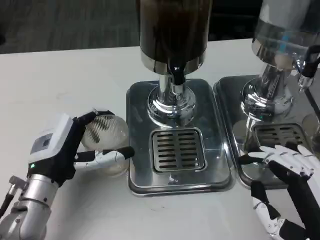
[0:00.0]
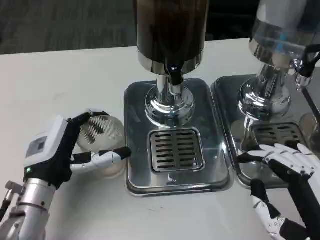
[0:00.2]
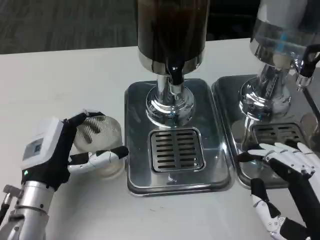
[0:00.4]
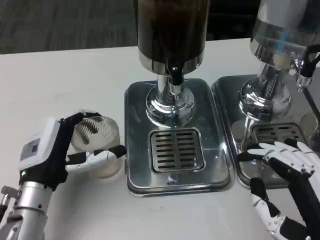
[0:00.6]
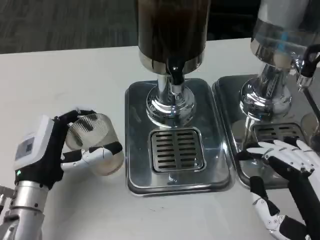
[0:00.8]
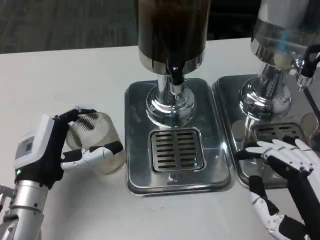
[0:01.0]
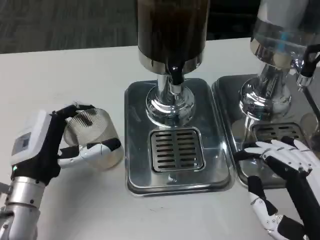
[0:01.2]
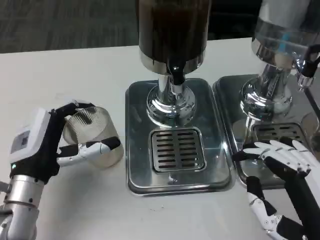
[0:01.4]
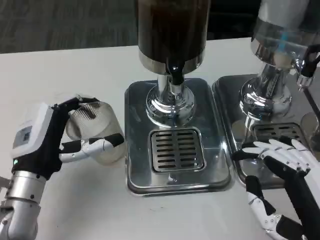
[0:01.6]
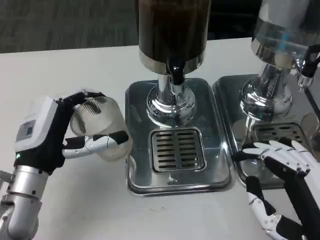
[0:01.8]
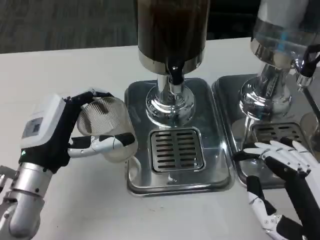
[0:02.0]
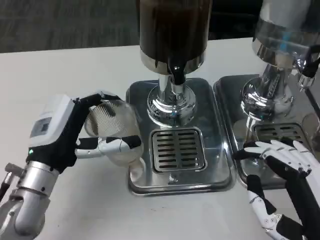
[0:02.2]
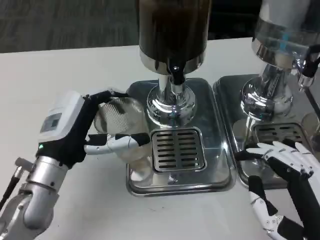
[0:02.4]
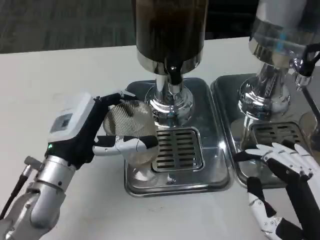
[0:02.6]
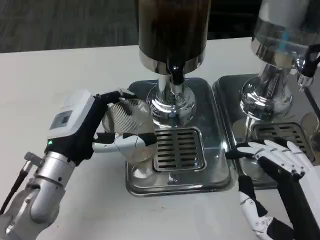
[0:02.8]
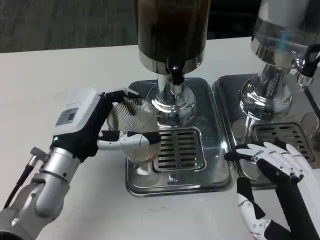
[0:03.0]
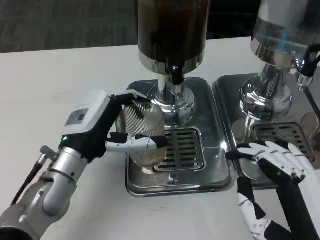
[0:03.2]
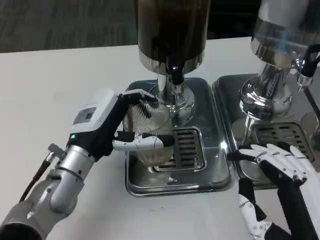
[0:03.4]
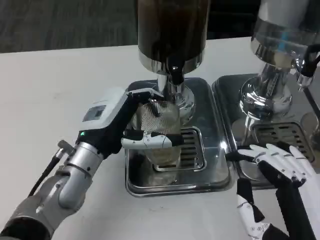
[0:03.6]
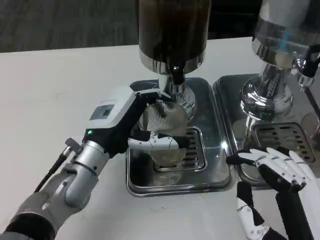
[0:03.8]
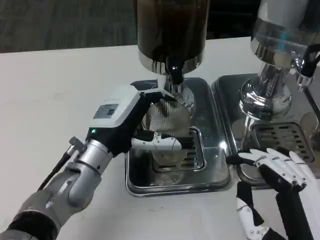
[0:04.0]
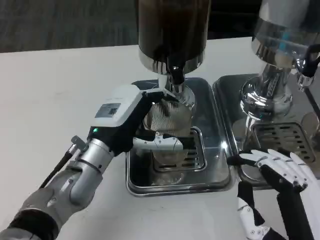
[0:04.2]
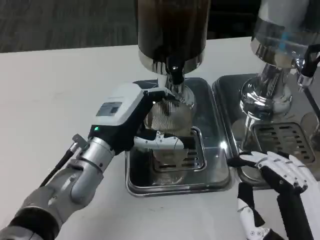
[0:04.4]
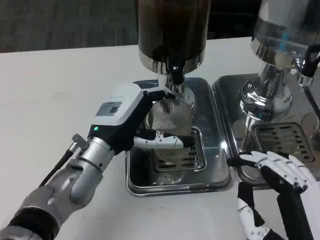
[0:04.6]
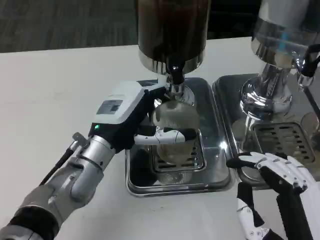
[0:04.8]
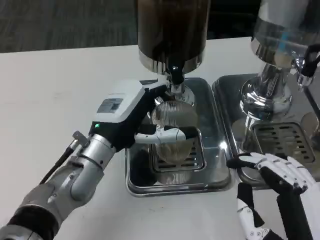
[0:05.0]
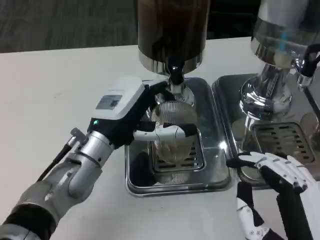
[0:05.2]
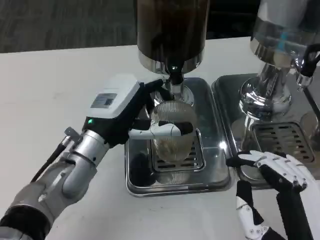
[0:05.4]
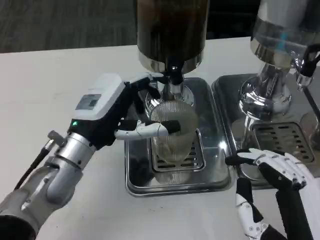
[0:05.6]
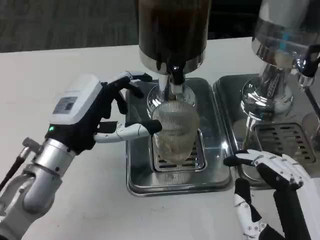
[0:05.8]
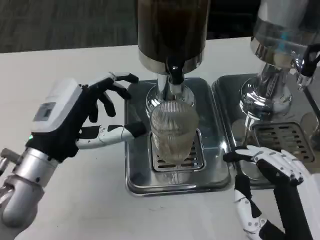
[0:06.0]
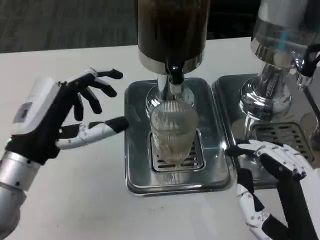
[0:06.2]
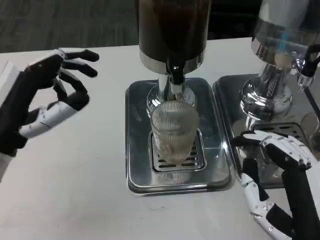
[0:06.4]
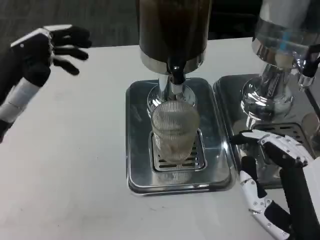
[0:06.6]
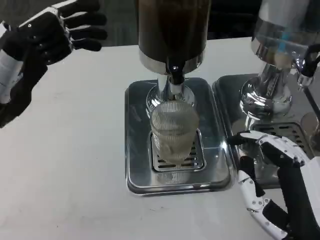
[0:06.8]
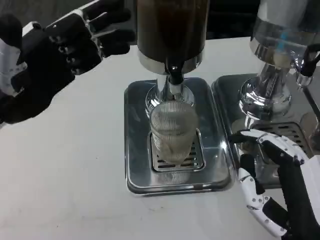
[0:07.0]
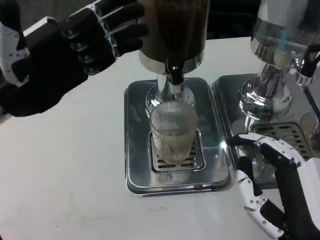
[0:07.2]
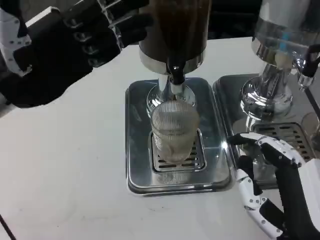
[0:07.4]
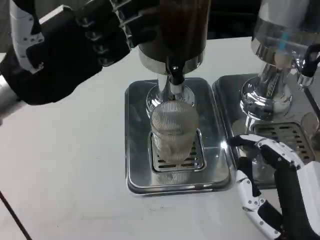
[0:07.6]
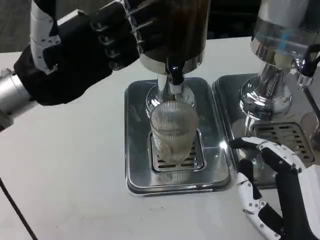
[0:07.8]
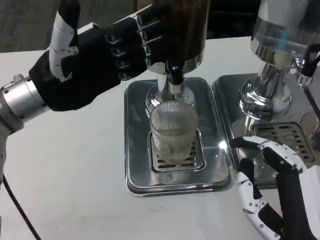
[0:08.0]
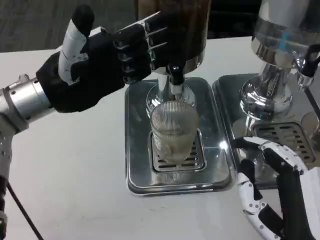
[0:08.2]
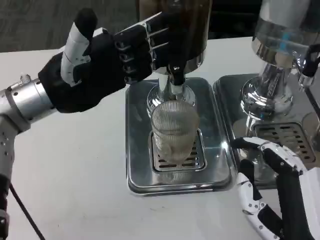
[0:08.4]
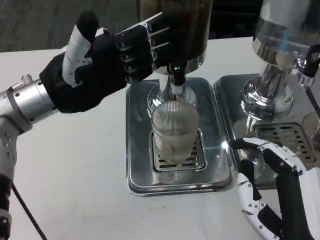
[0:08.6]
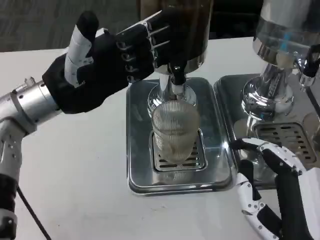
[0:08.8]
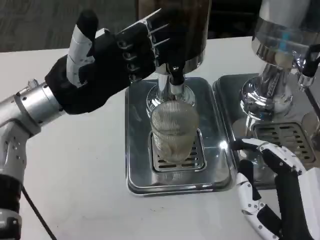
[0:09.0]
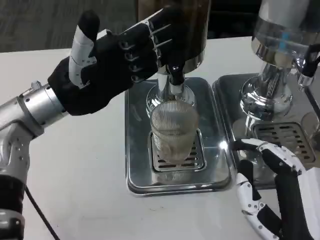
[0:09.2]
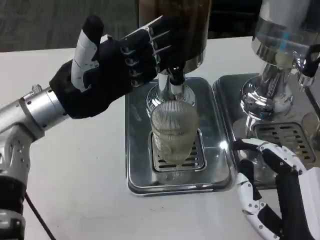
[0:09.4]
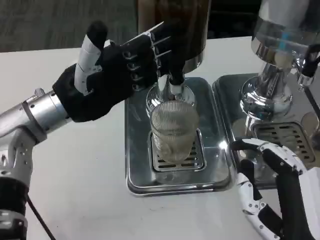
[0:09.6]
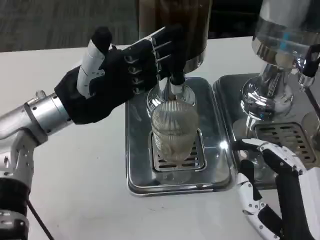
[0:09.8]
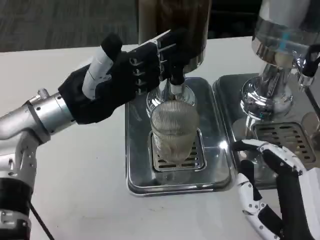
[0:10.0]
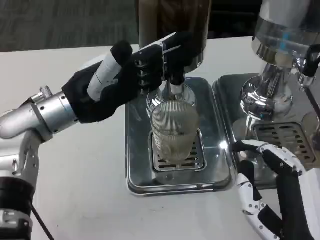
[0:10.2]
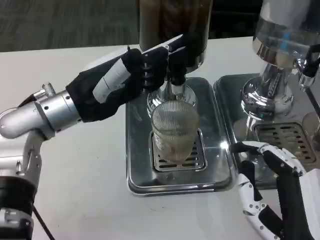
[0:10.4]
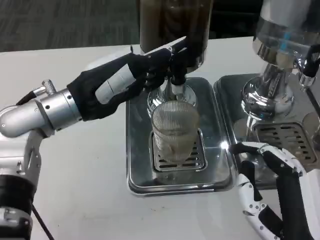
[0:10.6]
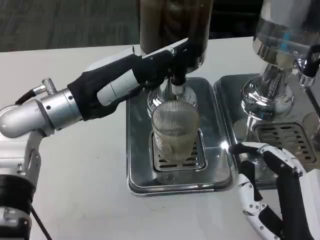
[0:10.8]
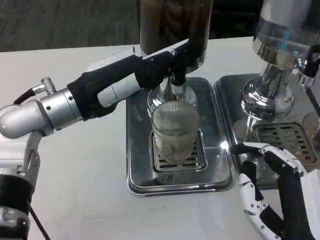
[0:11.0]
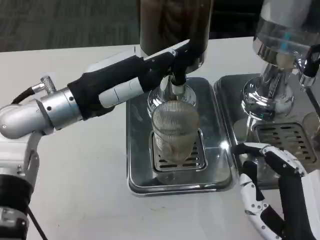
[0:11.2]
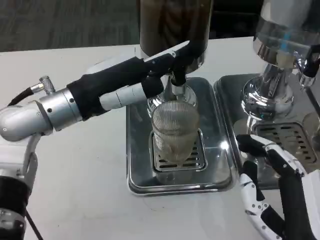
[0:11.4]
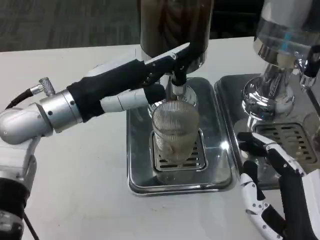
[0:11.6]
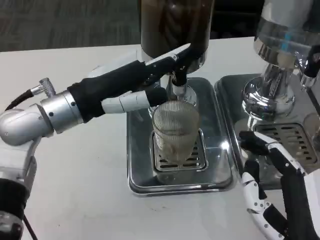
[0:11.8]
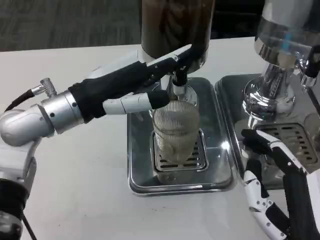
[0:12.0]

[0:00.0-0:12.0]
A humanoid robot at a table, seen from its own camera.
Task of the whole recording: Grasp the cup under the faucet to collect the drink, then remove the cup.
0:04.4 to 0:06.0: The left hand heads to the left, covering some 5 cm.
0:06.0 to 0:07.6: The left hand shifts roughly 10 cm upward and forward.
0:07.6 to 0:09.0: The left hand shifts by roughly 5 cm.

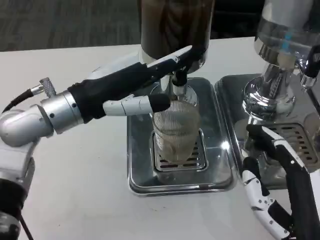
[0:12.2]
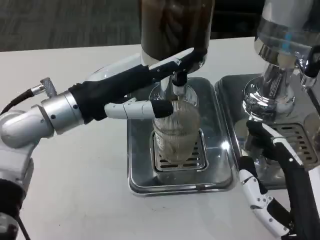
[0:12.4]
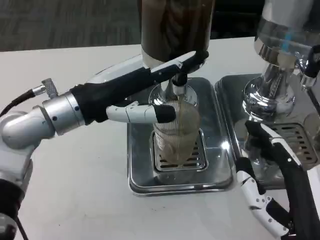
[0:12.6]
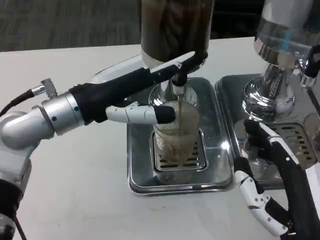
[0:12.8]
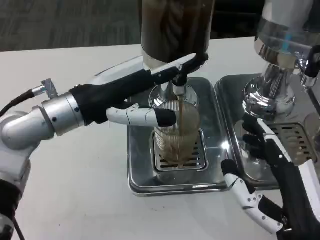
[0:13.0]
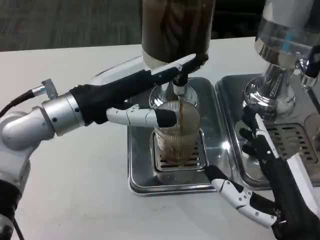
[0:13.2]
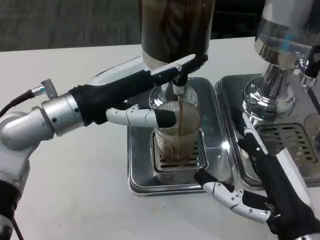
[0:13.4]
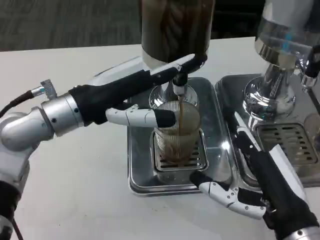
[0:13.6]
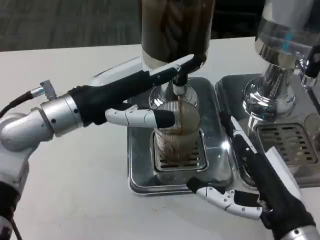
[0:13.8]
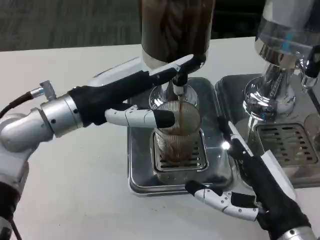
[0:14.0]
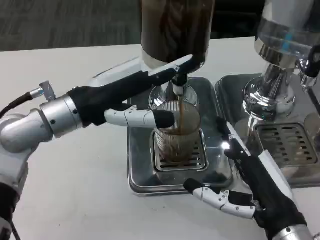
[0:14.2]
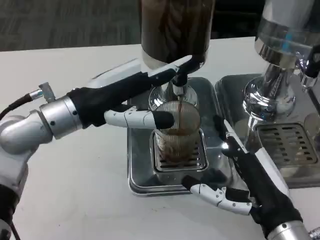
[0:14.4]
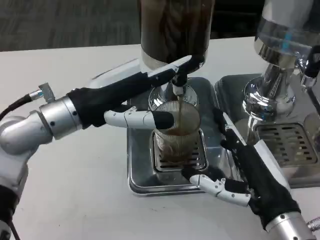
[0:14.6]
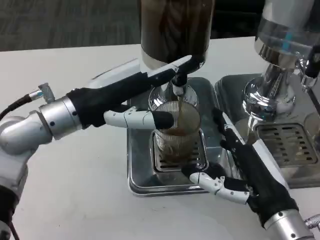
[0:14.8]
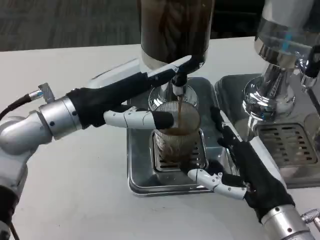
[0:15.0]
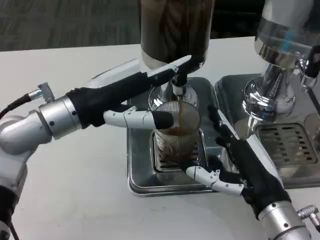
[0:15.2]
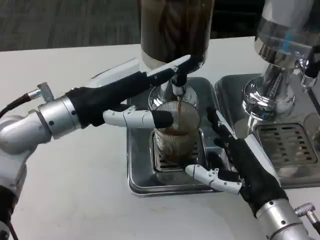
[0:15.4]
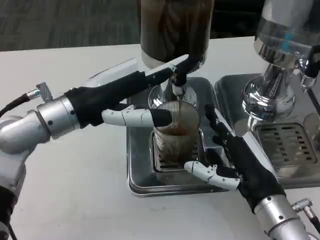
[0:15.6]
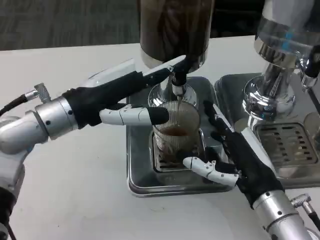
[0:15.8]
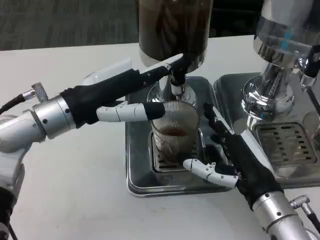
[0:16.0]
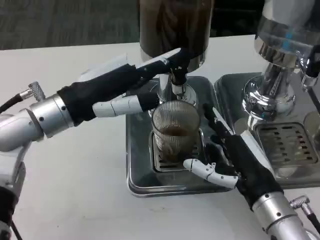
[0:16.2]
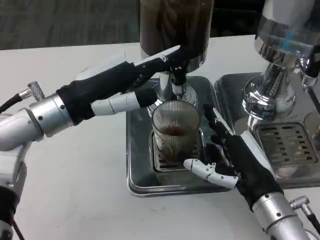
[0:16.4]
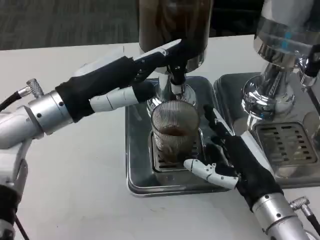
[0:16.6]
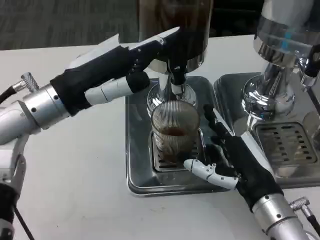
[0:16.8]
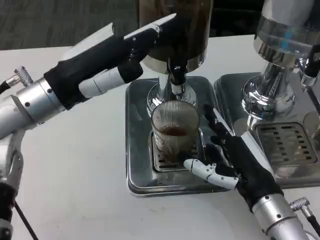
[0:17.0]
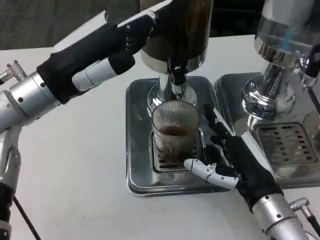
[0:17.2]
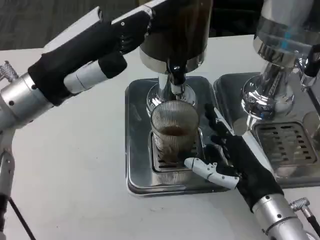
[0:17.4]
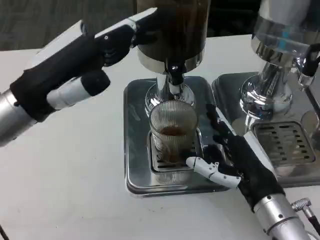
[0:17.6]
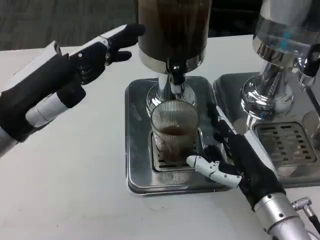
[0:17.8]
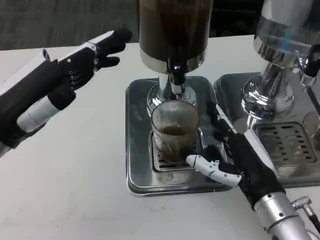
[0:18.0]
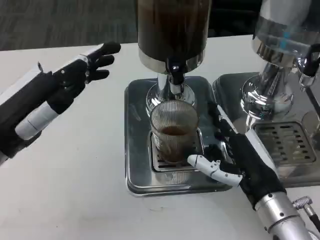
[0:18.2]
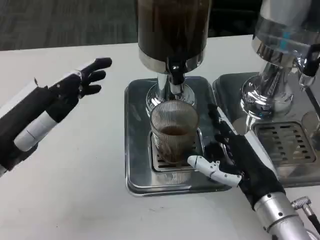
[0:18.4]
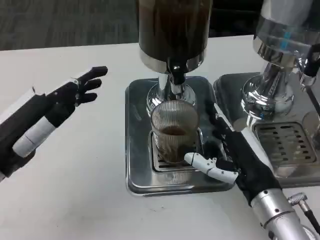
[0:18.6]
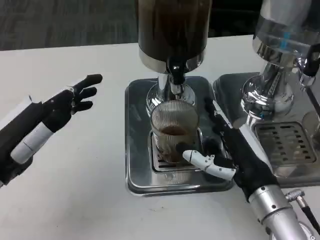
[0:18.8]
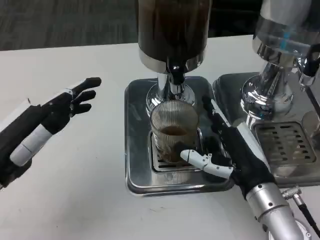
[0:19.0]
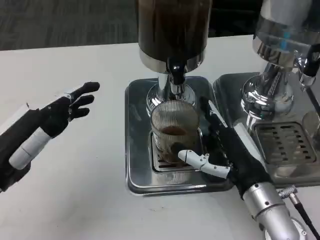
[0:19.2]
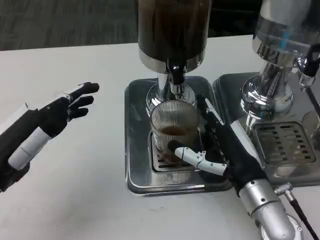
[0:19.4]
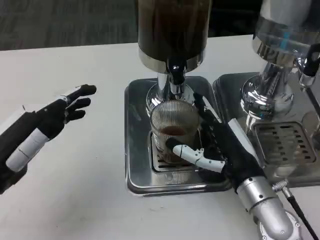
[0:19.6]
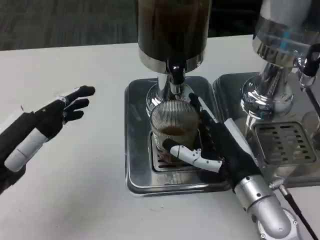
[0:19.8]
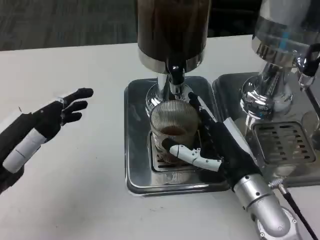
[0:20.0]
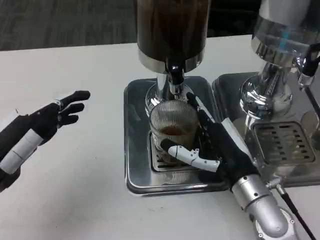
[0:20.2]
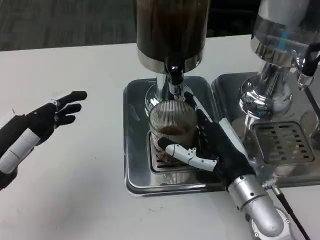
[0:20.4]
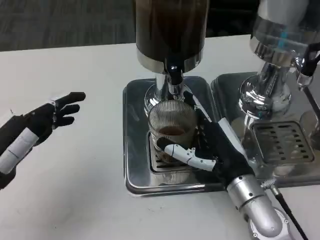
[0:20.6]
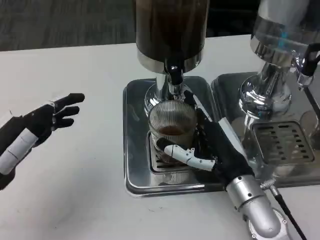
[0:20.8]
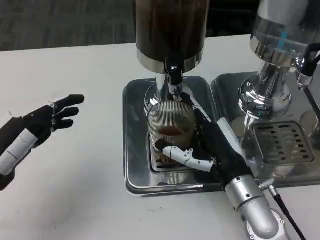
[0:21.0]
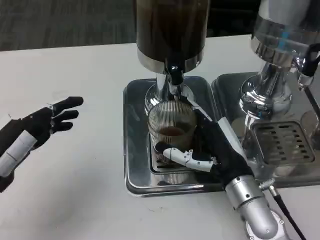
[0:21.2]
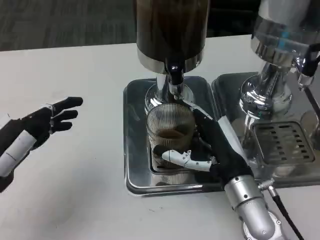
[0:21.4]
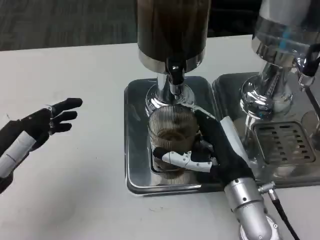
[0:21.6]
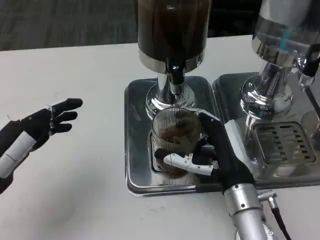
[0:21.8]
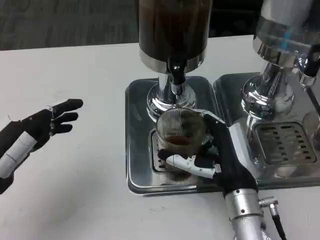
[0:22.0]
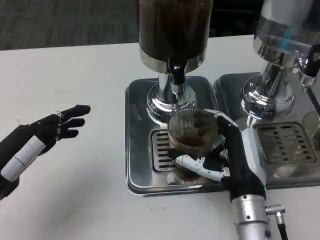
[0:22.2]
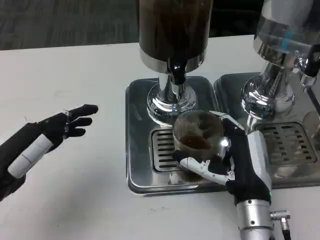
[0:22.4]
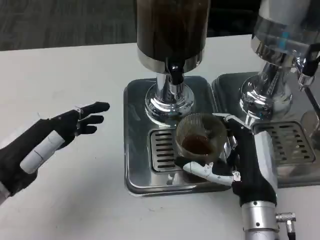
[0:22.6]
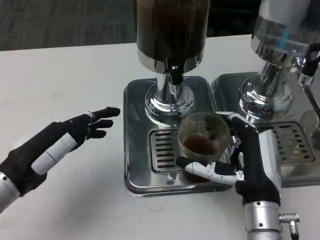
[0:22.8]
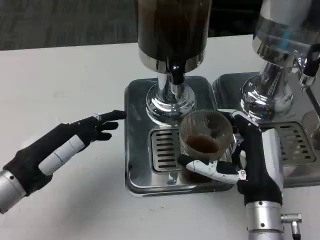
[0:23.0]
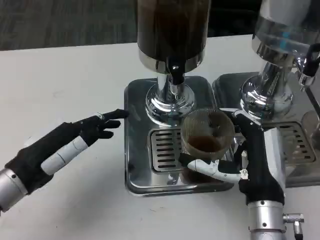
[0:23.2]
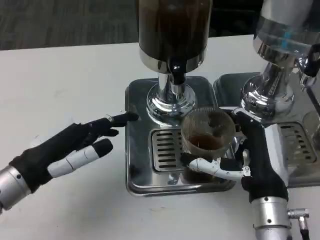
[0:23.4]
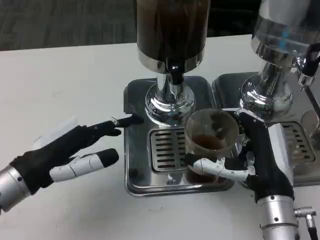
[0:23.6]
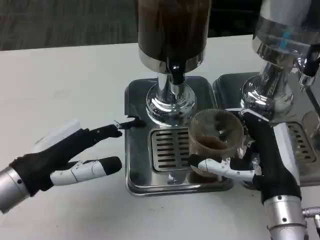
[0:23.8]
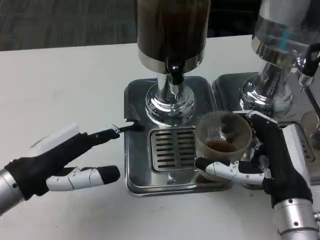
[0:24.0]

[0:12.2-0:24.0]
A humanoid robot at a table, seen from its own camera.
Task of the whole recording: Grasp the cup under the faucet to collect the drink, then remove the cup.
0:13.6 to 0:15.2: The right hand ends up roughly 5 cm from where it was.
0:16.6 to 0:18.2: The left hand heads backward and to the left, covering roughly 10 cm.
0:18.2 to 0:19.6: The left hand moves about 5 cm.
0:19.6 to 0:21.0: The hands make only small movements.
0:22.6 to 0:24.0: The right hand shifts by about 5 cm.
